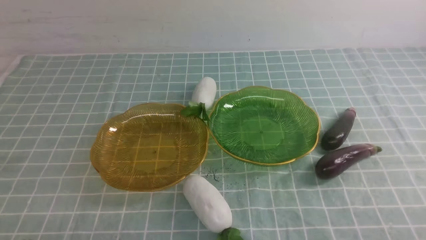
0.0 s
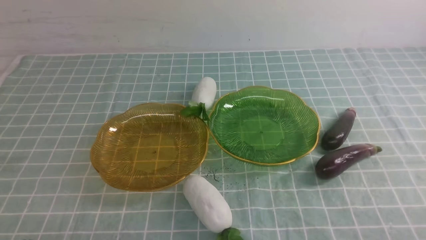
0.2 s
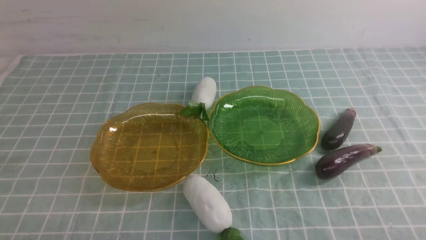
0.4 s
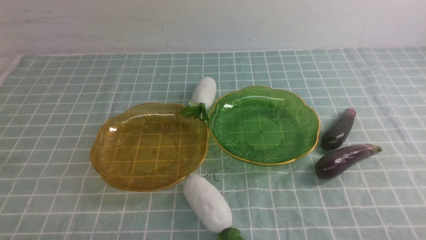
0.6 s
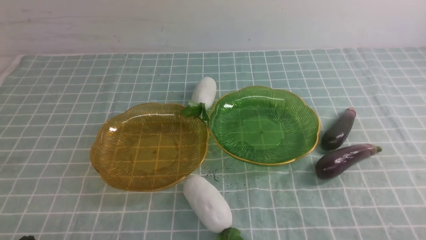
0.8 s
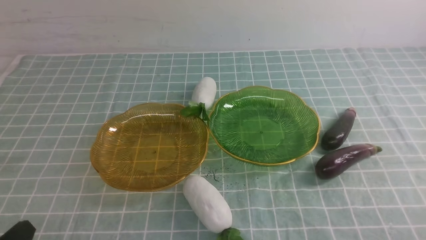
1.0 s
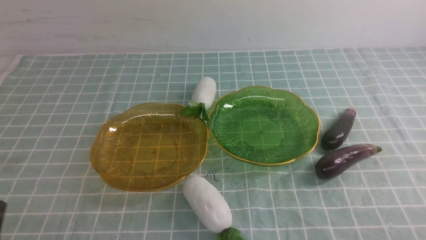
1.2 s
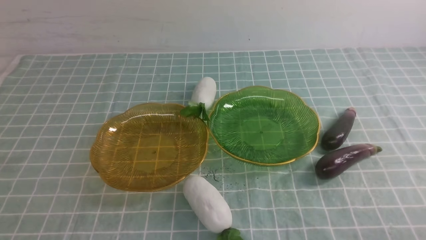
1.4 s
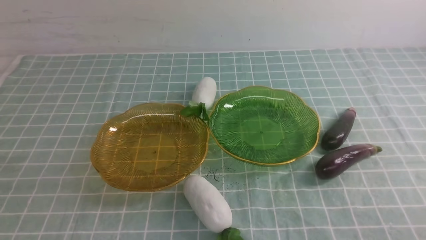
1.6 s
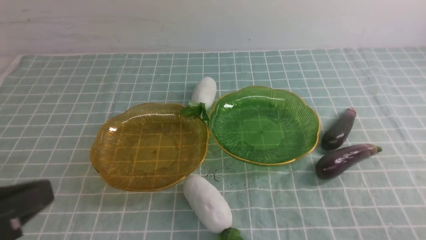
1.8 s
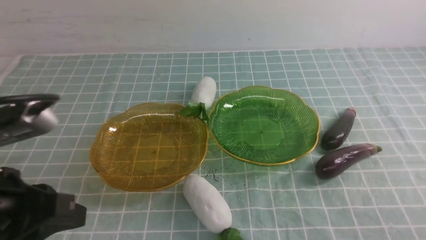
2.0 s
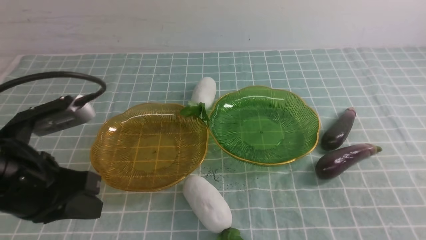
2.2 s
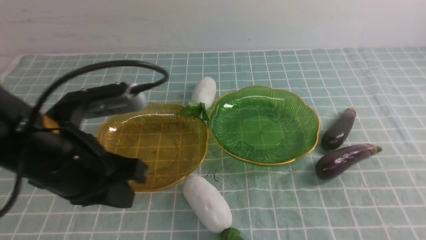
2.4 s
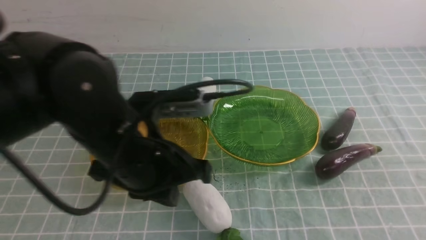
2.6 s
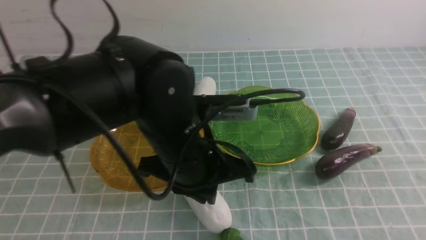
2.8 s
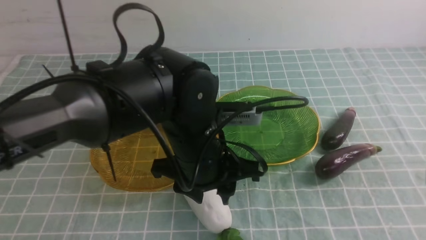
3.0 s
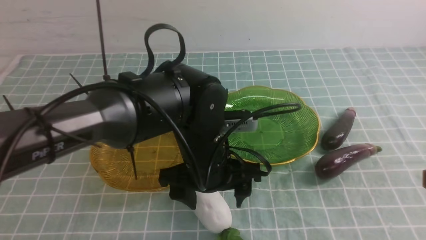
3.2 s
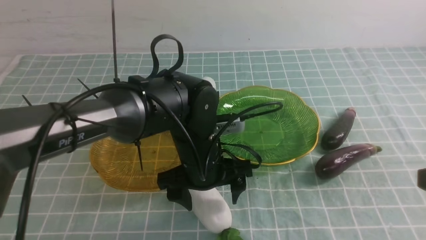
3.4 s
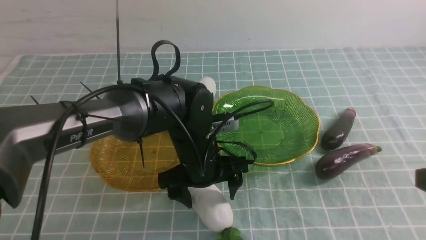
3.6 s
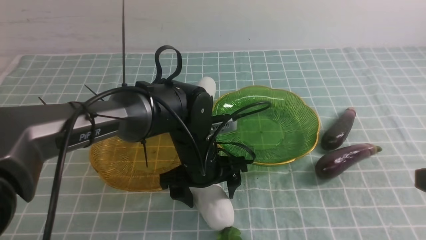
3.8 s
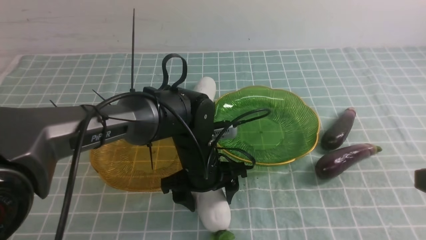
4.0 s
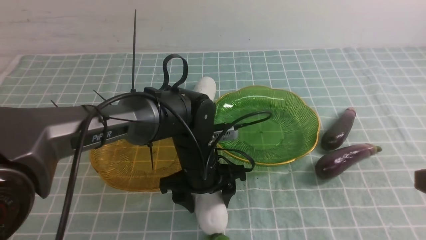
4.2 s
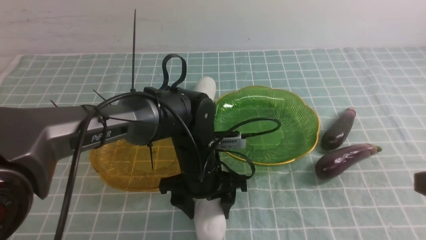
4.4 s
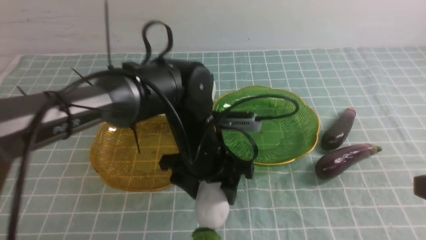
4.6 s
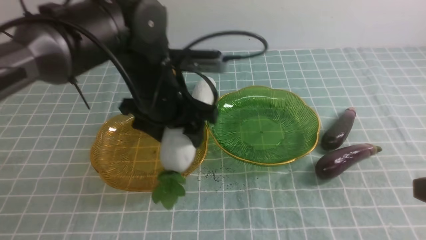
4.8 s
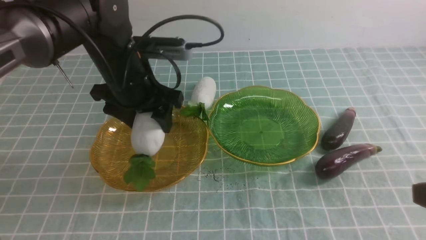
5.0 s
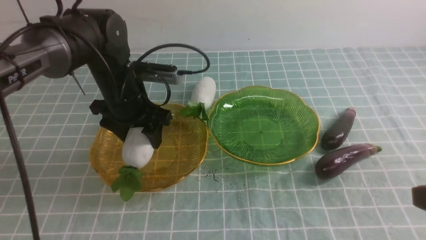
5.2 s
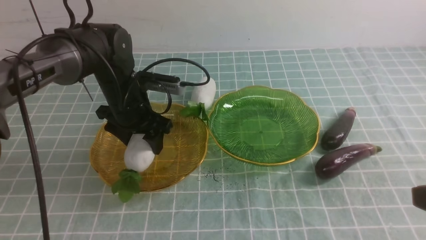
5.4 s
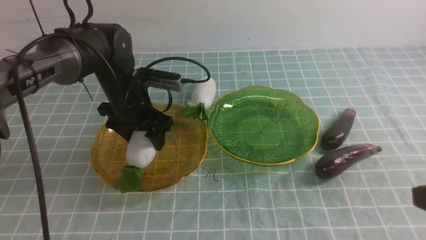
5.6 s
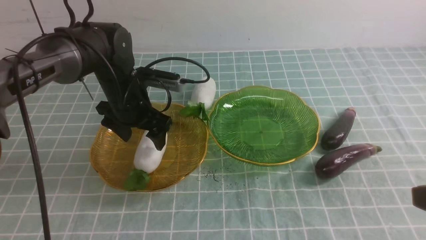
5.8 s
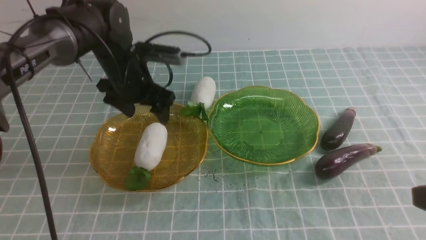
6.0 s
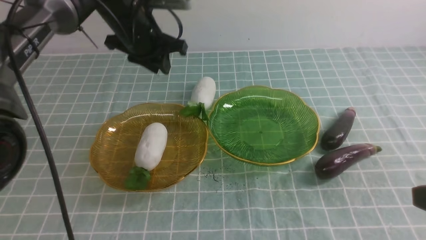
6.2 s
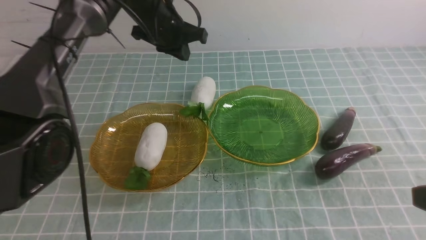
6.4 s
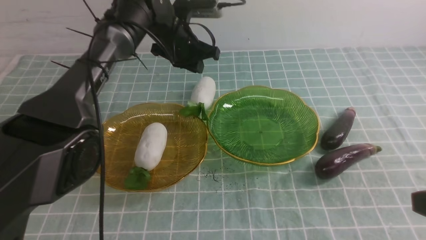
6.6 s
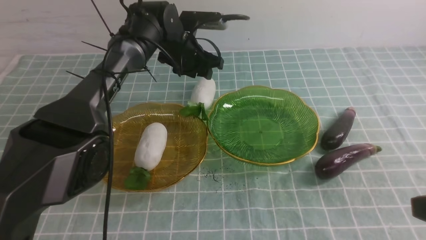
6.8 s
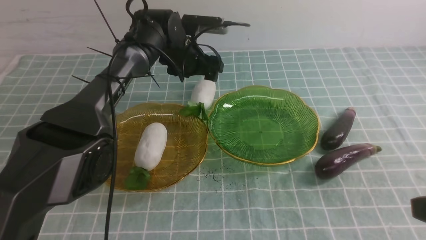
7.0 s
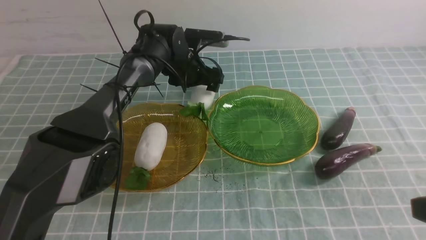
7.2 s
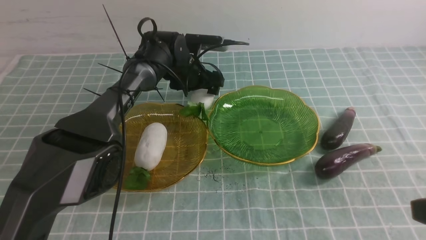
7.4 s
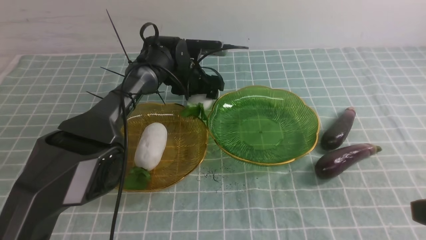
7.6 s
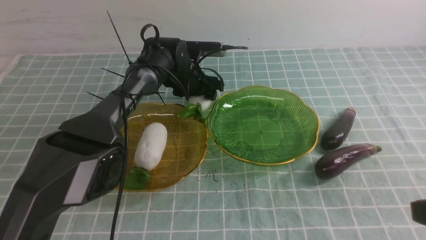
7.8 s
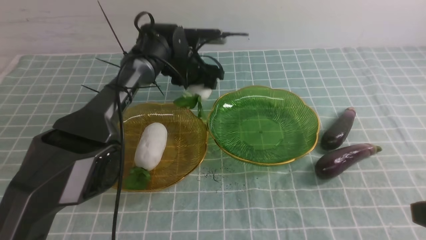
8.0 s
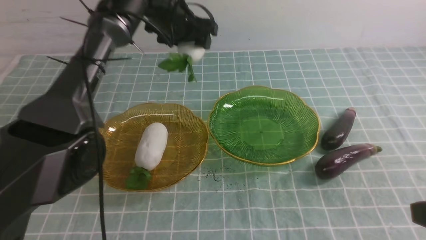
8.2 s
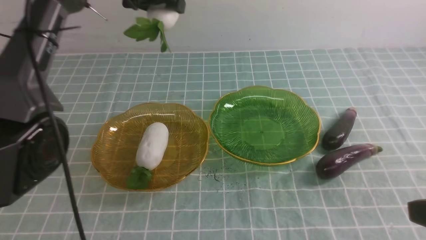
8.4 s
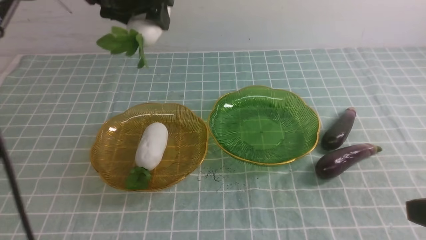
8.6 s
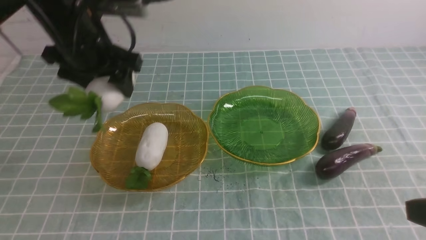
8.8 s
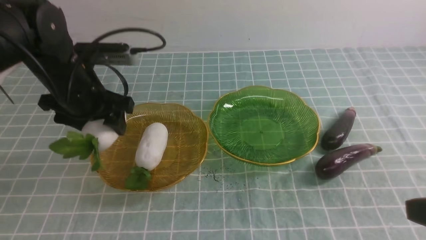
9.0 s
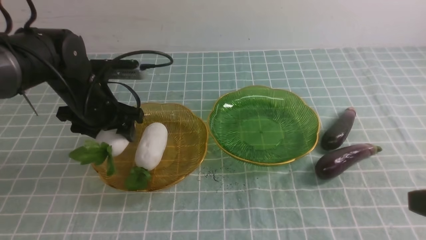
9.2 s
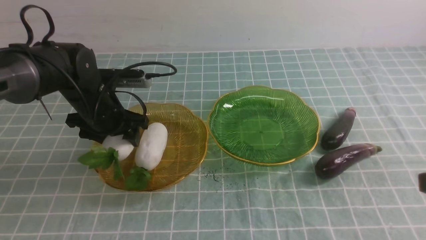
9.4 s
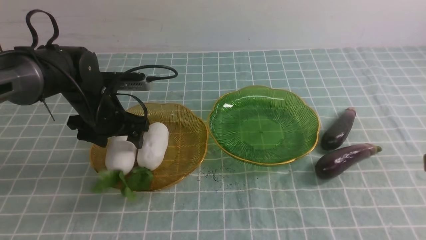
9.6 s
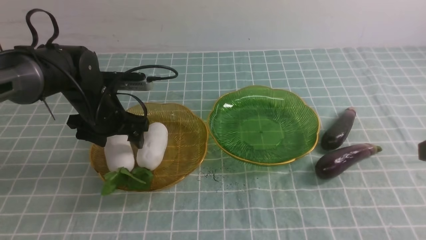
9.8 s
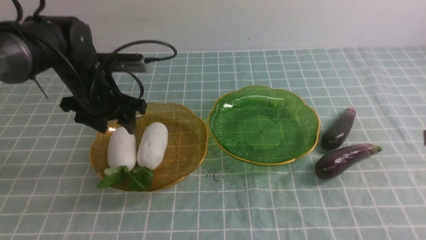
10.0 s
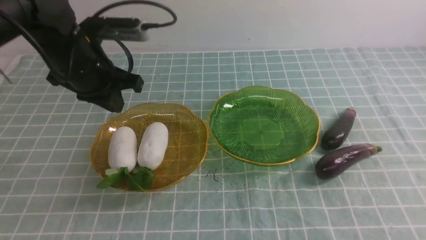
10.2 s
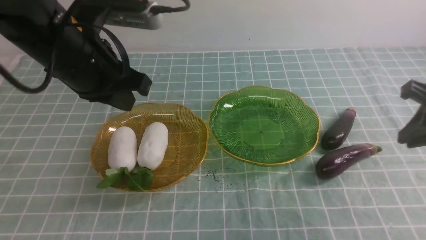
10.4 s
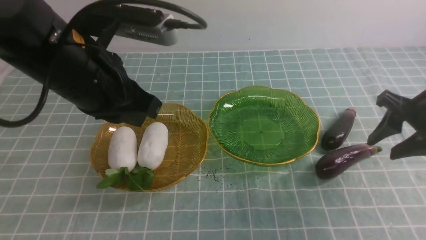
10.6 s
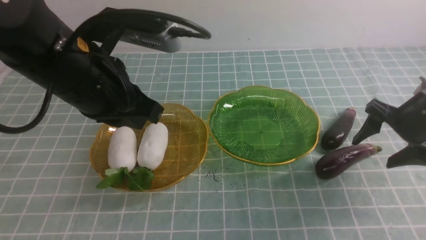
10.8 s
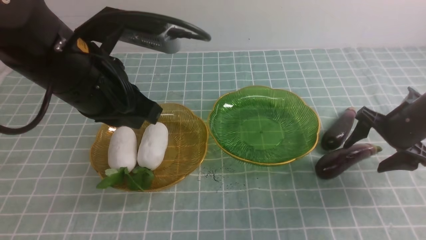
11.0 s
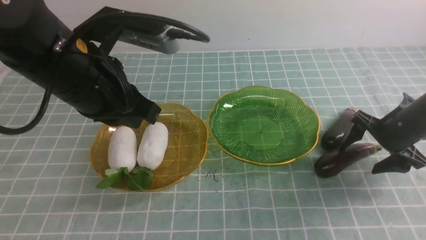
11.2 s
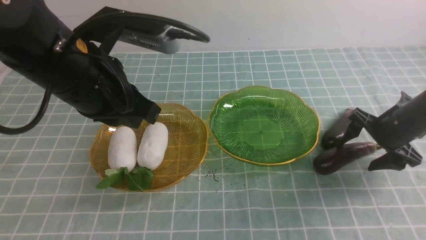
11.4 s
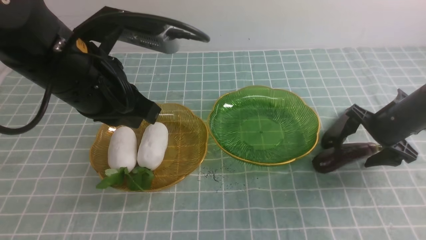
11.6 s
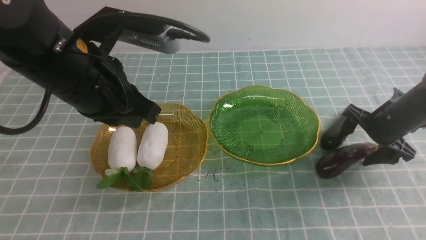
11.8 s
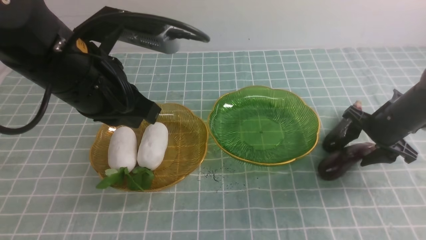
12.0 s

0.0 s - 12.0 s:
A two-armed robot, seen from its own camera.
Step, 0.0 s - 9.6 s: use the left arm to grab a radish and put it into the left plate.
1.6 s - 3.0 s: The left gripper goes some 30 cm to the right and forward, and opens its fingers; the right gripper heads upward and forward, covering some 15 cm.
3.0 s - 4.4 s: The left gripper travels downward by some 5 cm.
4.4 s - 6.0 s: The left gripper is displaced forward, to the left and upward by approximately 20 cm.
6.0 s - 7.6 s: The left gripper moves downward, forward and to the right, some 15 cm, and closes and opens again.
7.6 s - 9.0 s: The left gripper travels backward, to the left and upward by approximately 25 cm.
9.0 s - 10.4 s: The right gripper is displaced forward by approximately 20 cm. Meanwhile the left gripper goes about 10 cm upward and backward, and closes.
10.4 s - 12.0 s: The right gripper moves downward and forward, some 15 cm, and opens up.

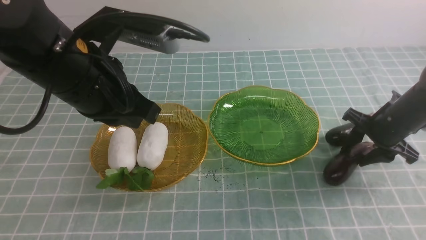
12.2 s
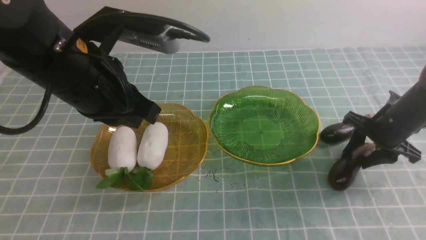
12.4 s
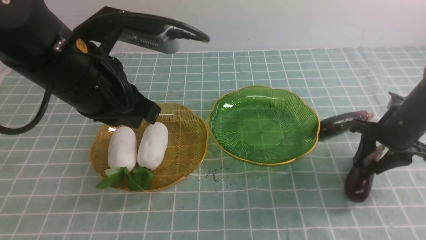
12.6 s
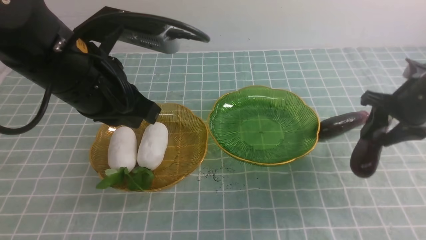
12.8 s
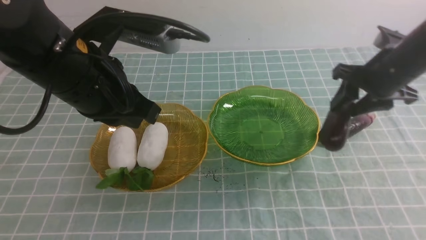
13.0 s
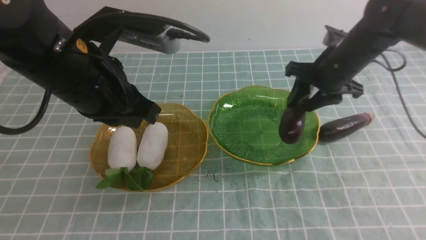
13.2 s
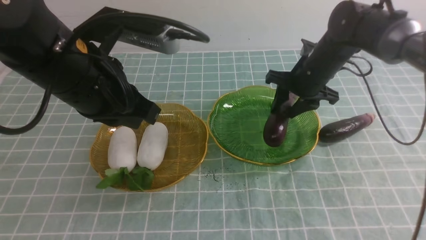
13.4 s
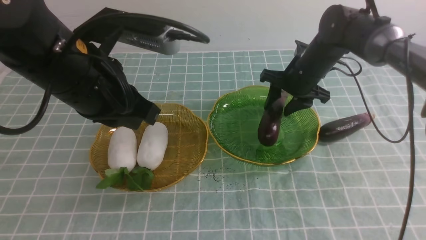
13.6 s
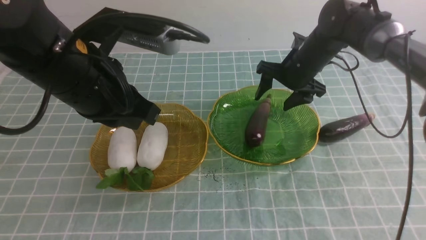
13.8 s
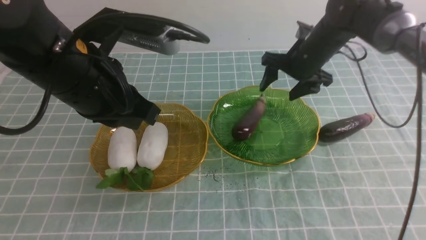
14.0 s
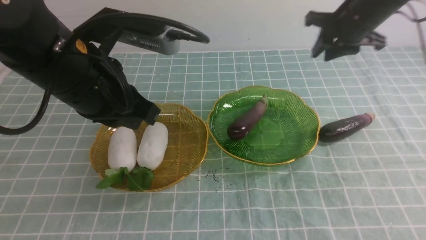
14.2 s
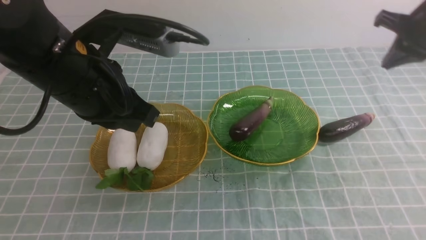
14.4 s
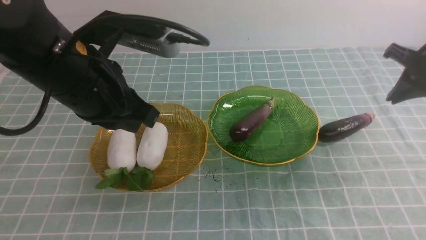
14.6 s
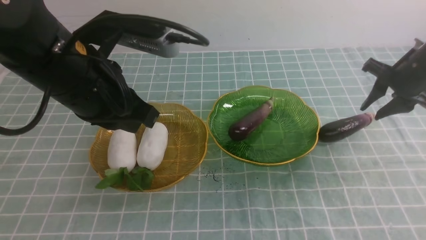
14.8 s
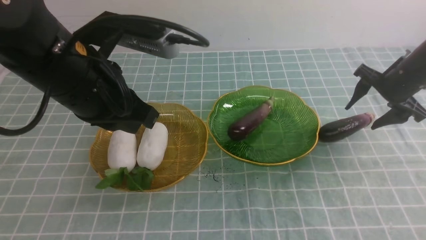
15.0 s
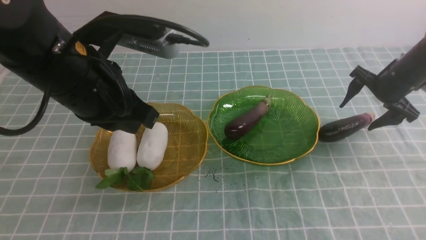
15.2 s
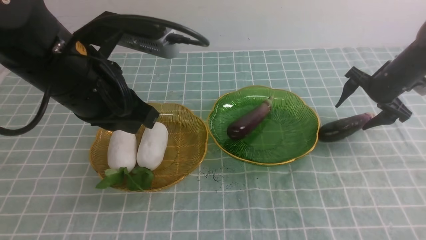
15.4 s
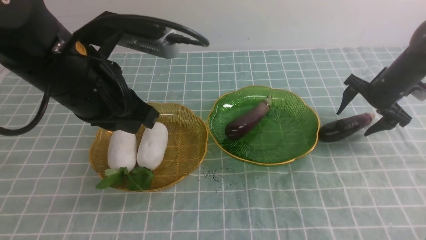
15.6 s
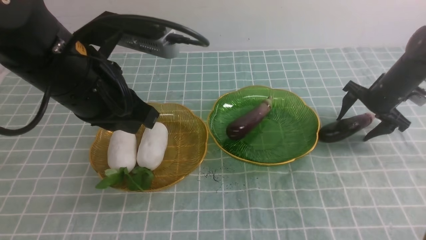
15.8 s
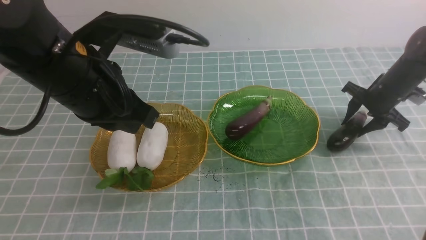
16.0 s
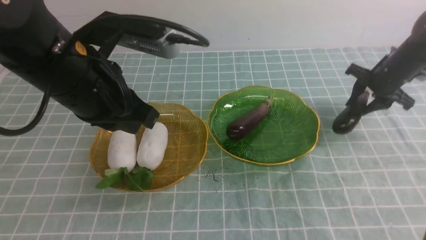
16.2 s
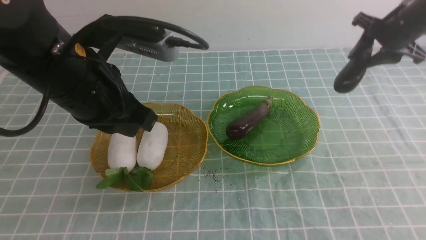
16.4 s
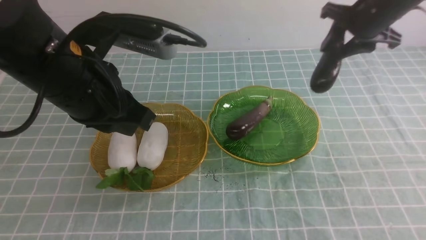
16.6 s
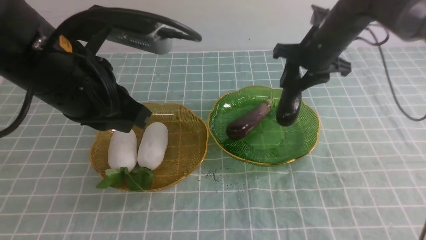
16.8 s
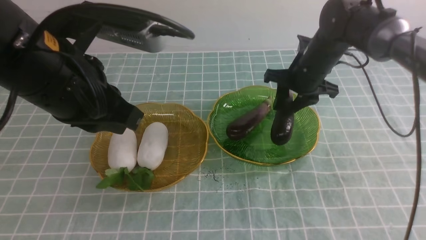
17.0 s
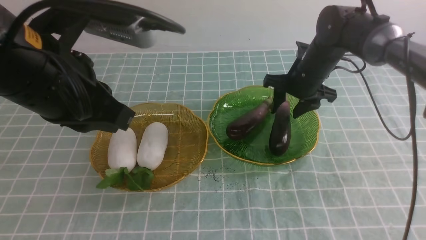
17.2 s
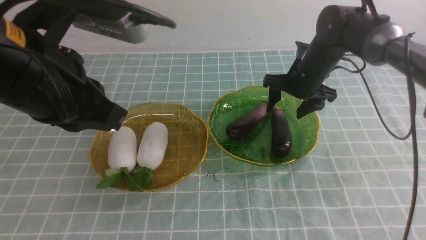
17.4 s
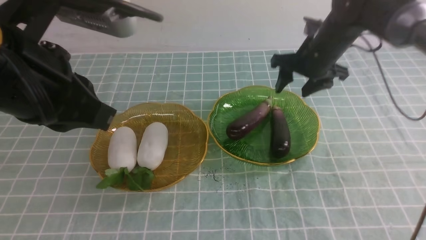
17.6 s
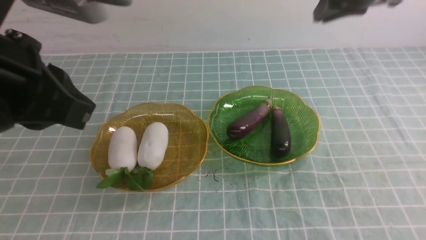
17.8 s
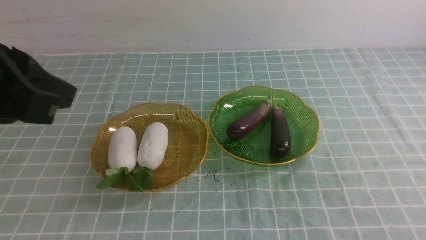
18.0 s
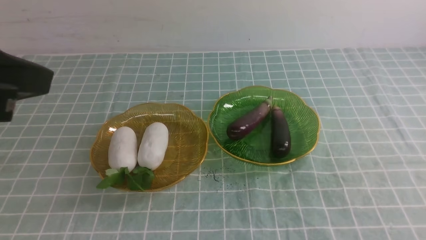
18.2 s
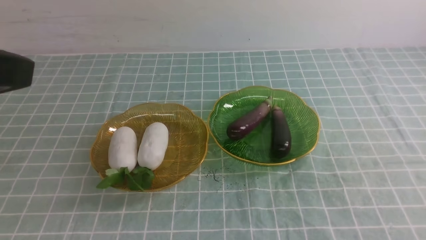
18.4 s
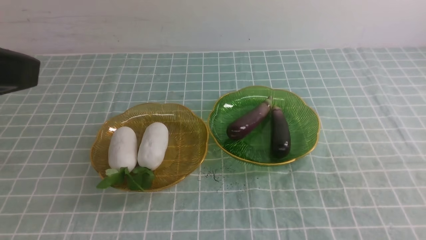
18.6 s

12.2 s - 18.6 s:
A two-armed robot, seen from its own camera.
Step, 12.2 s - 17.2 s: use the right arm to grab an eggplant and put it into the right plate.
12.2 s - 13.8 s: The right gripper shifts some 20 cm to the left, forward and upward.
13.8 s - 15.4 s: The right gripper is displaced to the right by some 15 cm, and closes, then opens again.
15.4 s - 17.0 s: The right gripper goes some 15 cm to the left, and closes its fingers.
17.0 s - 18.6 s: The left gripper moves backward and upward, approximately 15 cm. The right gripper moves backward, some 50 cm, and closes its fingers.
